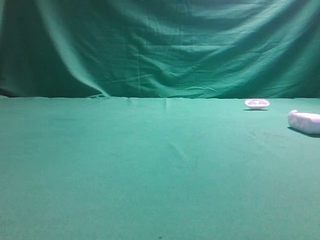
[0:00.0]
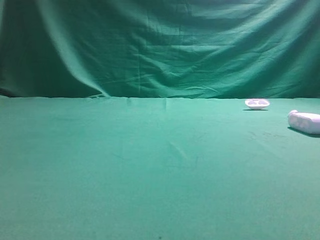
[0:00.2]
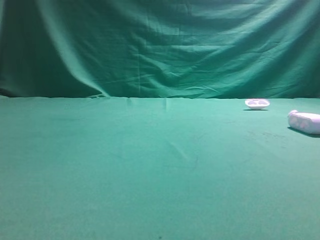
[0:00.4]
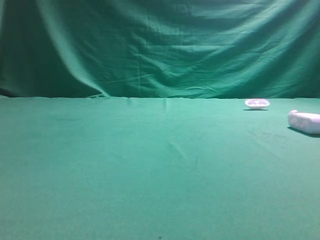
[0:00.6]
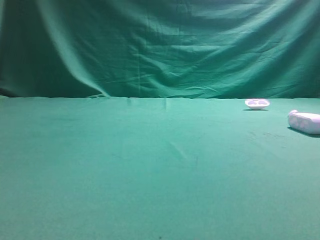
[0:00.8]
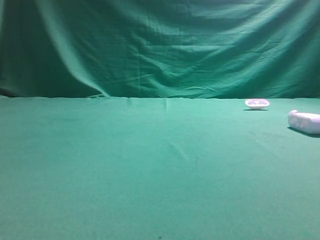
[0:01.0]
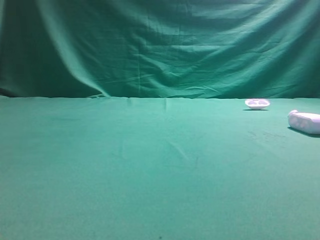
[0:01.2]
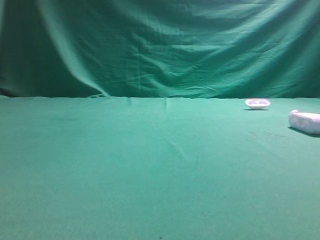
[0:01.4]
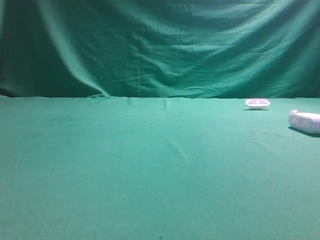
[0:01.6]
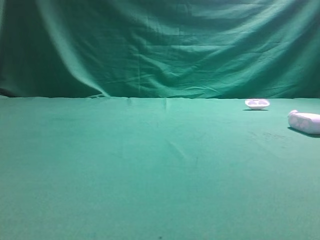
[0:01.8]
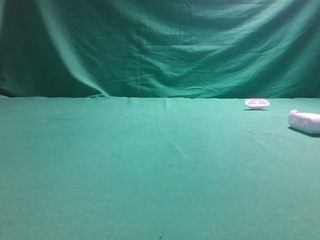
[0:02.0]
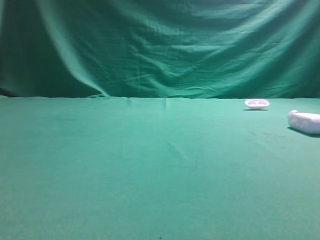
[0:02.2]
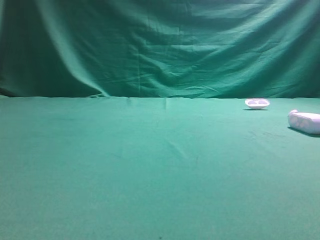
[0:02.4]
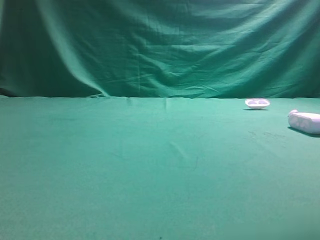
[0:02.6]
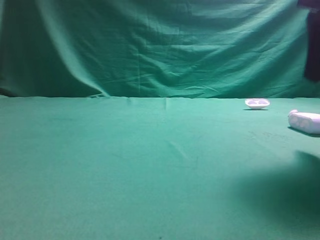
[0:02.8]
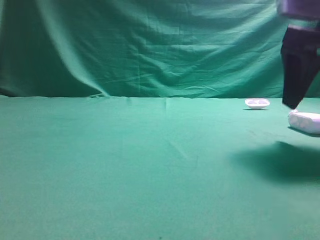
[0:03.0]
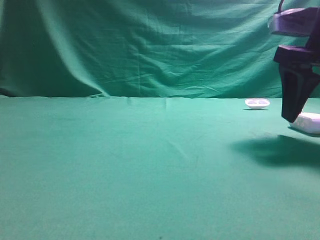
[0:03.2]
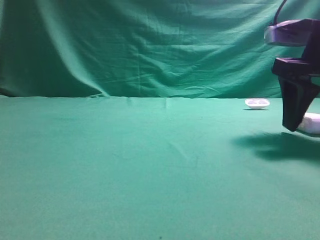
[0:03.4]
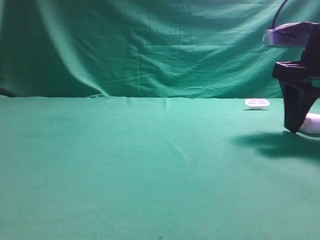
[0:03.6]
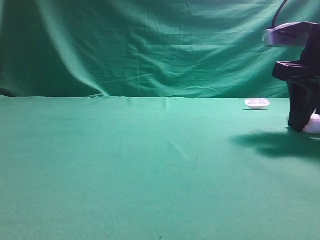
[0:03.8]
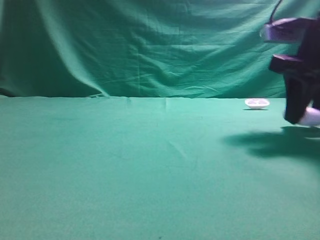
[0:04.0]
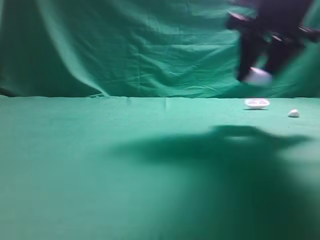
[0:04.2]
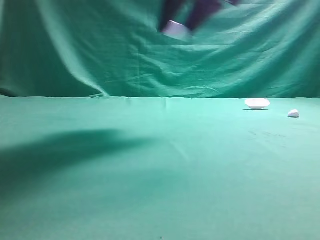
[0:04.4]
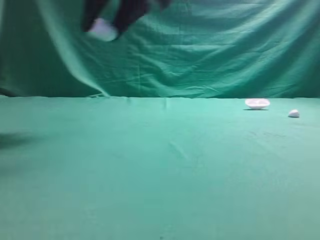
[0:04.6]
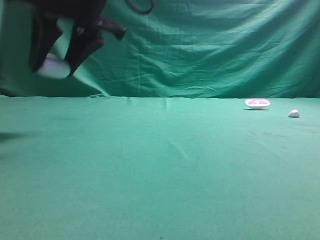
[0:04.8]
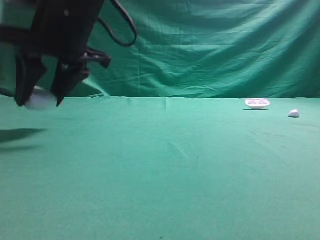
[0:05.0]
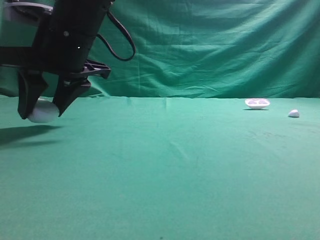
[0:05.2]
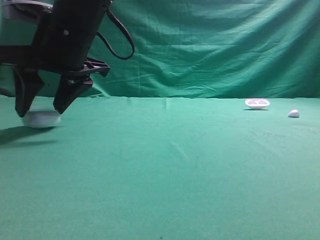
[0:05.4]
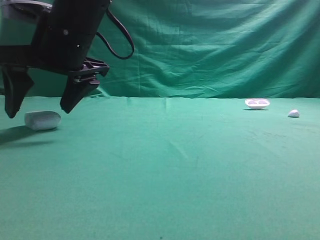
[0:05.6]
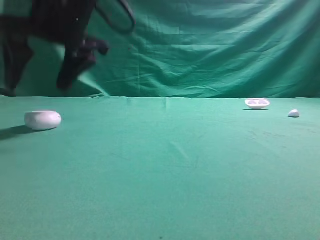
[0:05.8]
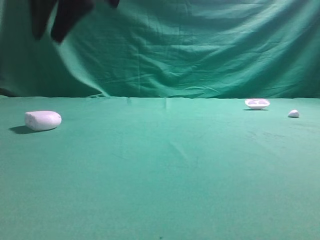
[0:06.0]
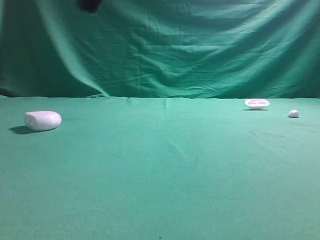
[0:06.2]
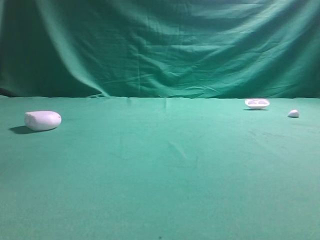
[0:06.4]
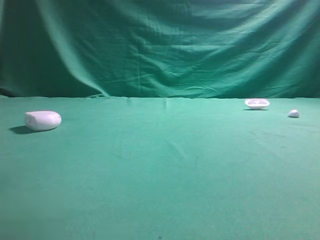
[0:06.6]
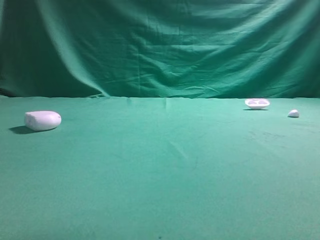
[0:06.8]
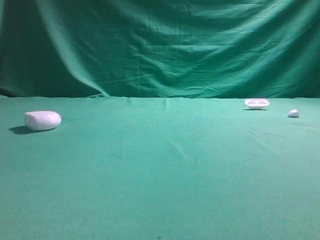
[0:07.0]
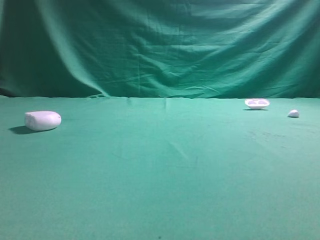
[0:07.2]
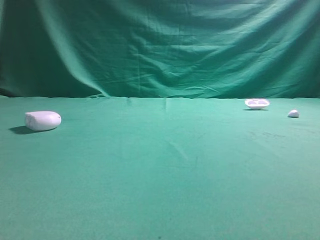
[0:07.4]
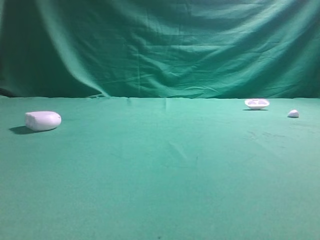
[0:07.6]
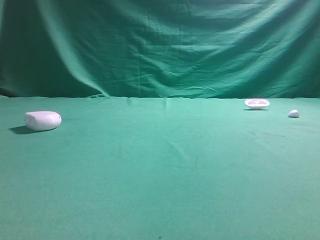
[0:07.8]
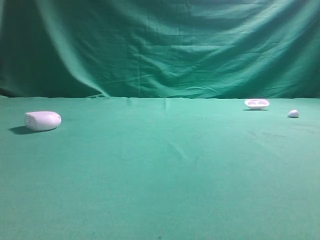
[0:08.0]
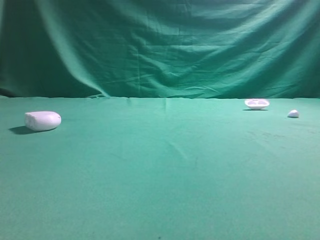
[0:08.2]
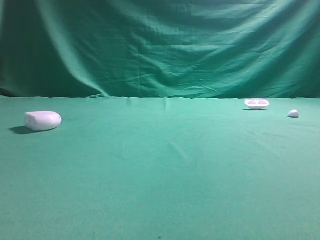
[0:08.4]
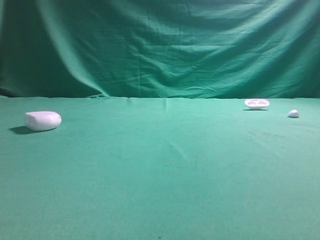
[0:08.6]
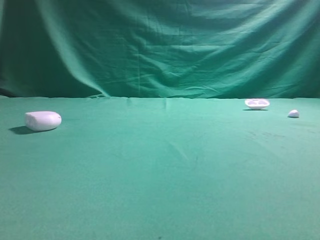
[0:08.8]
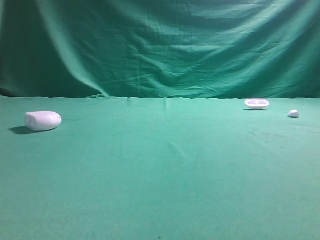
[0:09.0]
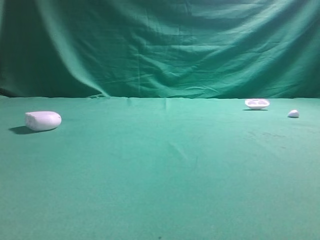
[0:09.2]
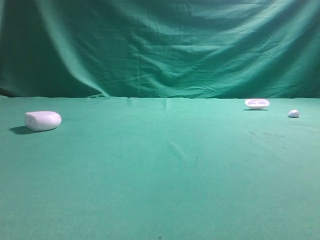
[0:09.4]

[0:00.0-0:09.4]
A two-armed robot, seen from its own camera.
Step, 0:00.0 to 0:04.0: Grasp the Bluetooth earphone case.
Step, 0:04.2 to 0:05.8: Place bluetooth earphone case on the left side of the table.

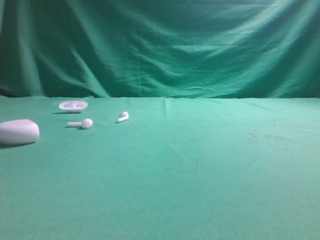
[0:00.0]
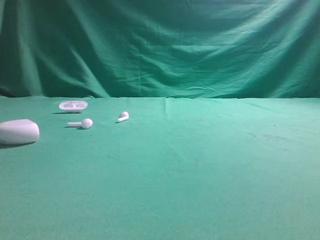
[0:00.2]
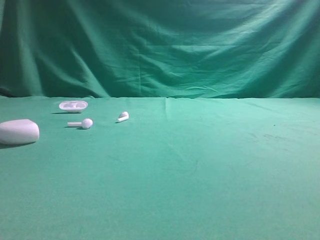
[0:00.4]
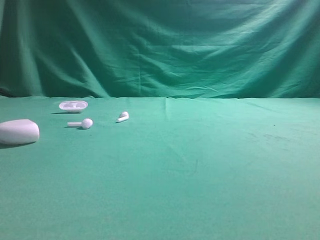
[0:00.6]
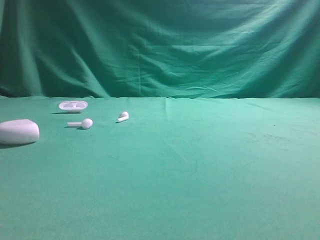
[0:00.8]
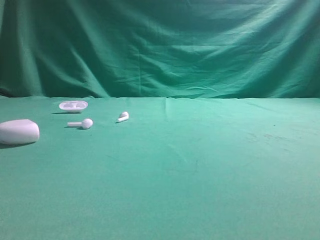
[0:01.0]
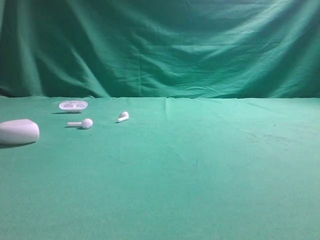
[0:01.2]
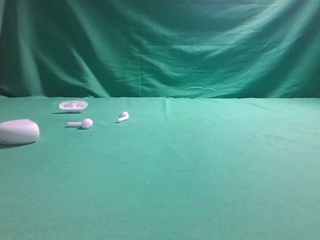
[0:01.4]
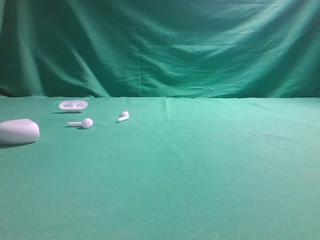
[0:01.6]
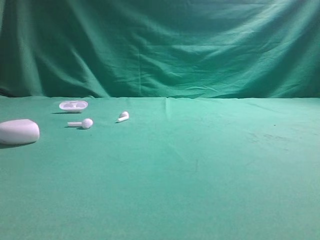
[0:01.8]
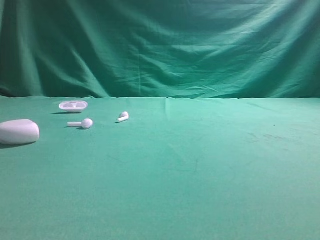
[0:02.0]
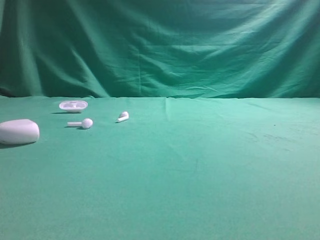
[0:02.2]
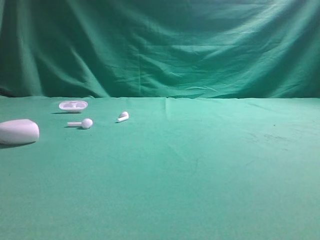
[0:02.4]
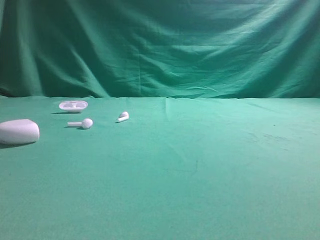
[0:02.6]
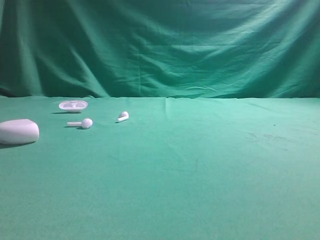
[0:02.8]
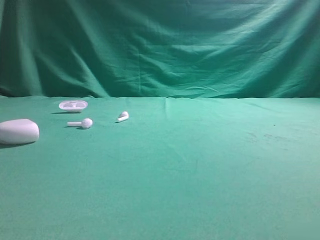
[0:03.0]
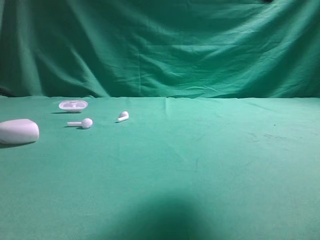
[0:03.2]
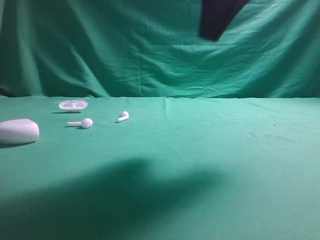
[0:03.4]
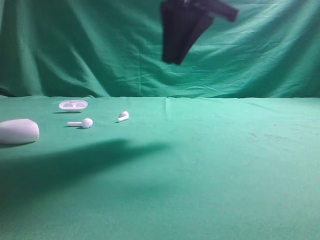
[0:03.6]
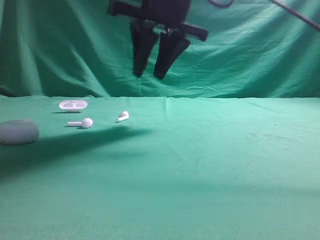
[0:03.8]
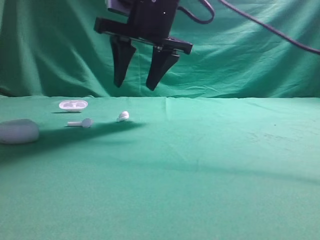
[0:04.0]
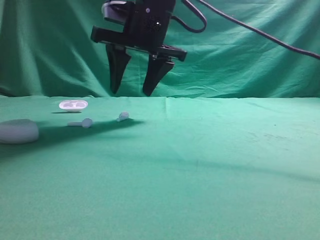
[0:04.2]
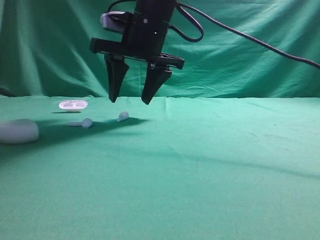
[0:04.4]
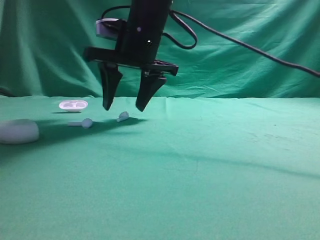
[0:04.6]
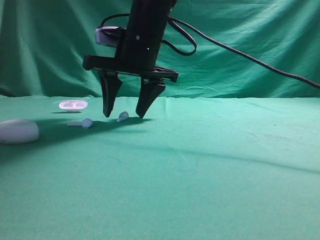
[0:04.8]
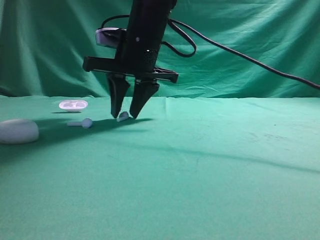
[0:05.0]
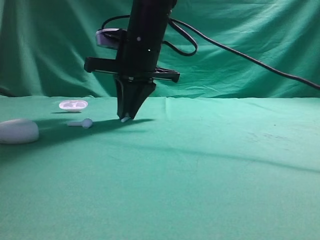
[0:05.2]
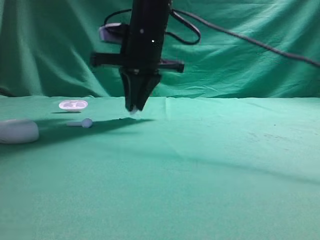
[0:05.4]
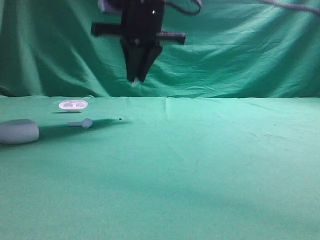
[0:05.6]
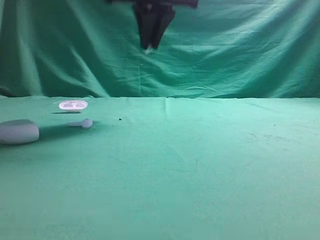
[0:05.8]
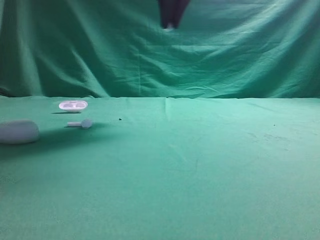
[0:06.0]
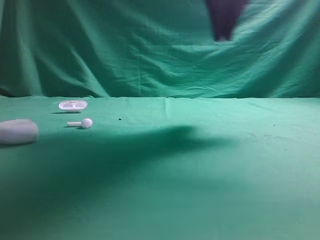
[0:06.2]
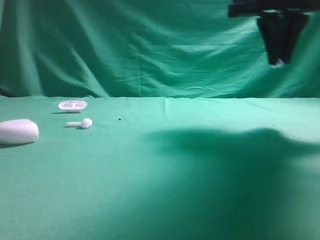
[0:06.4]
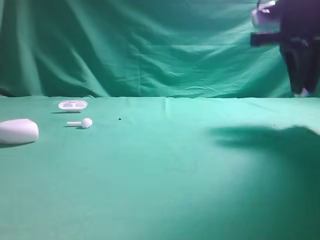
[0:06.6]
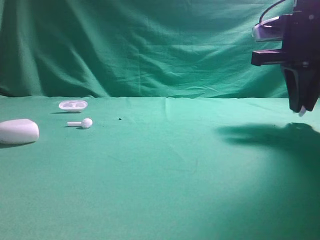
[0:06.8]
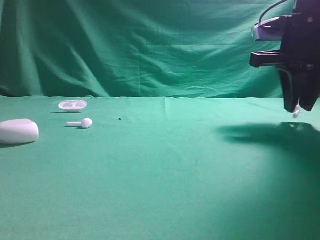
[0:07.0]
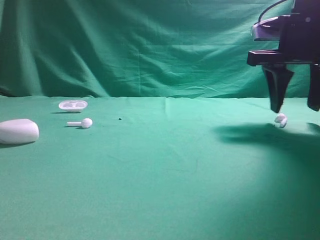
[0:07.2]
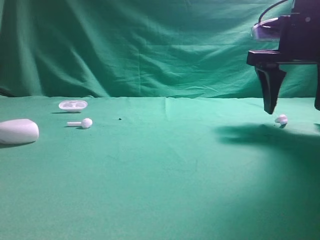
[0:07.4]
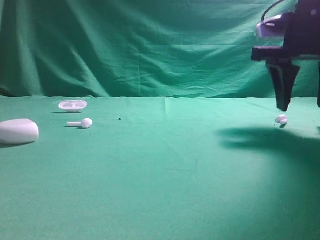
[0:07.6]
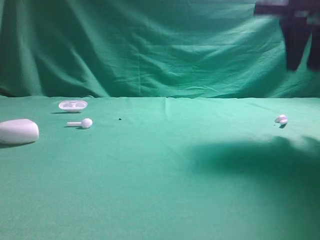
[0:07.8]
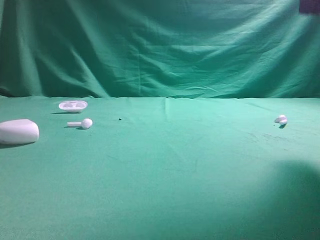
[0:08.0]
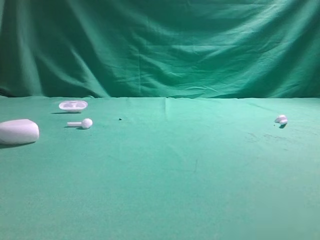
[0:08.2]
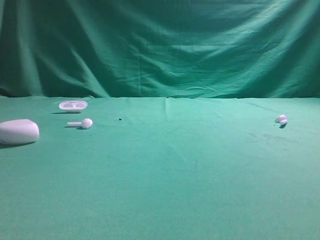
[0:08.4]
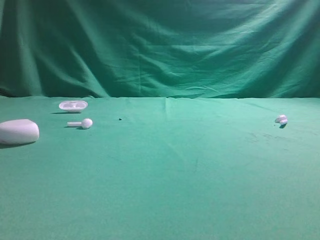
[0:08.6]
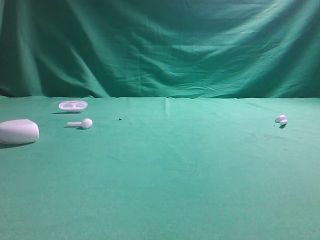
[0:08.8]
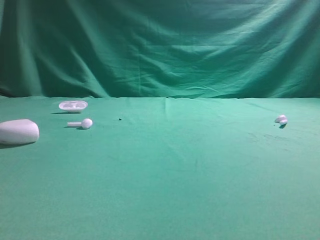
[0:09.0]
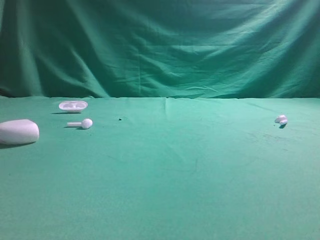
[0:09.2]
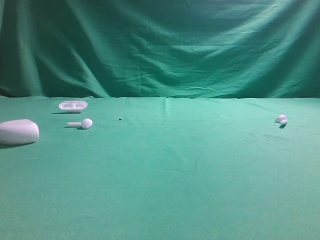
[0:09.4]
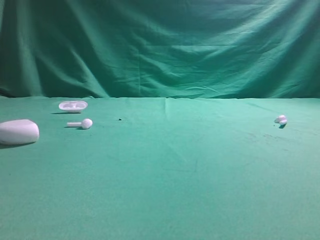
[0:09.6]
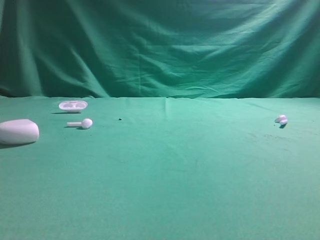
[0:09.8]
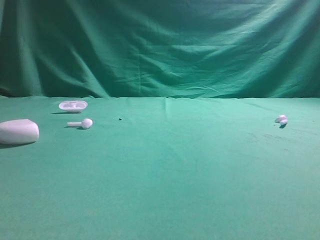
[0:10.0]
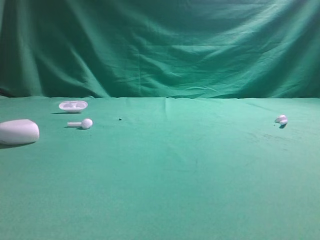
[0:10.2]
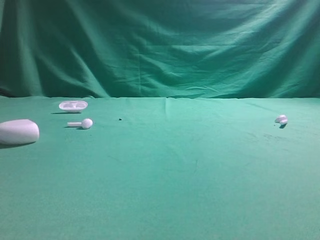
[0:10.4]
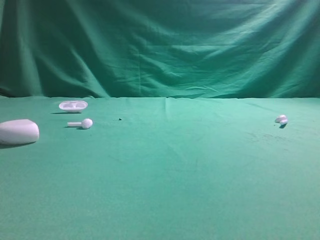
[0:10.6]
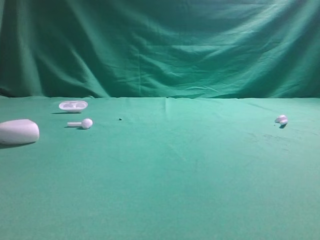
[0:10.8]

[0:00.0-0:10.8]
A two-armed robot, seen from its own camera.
Step, 0:00.0 to 0:05.8: Grasp the Bluetooth earbud.
Step, 0:06.0 to 0:07.6: Place bluetooth earbud on the right side of the table.

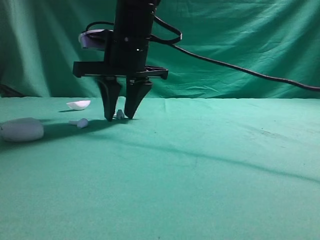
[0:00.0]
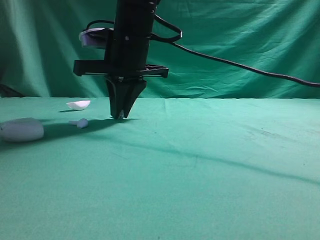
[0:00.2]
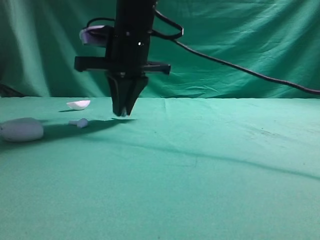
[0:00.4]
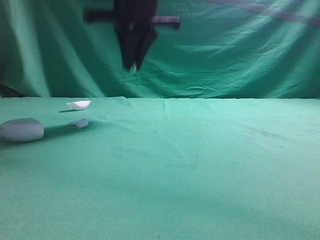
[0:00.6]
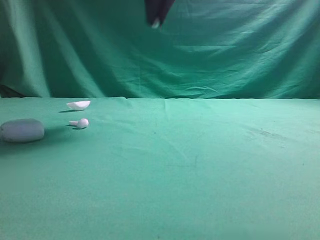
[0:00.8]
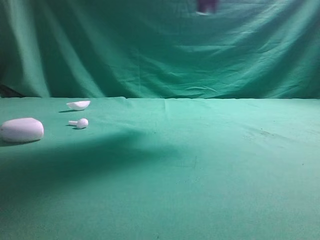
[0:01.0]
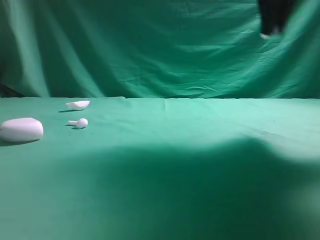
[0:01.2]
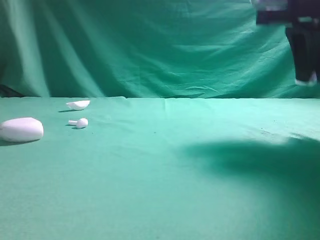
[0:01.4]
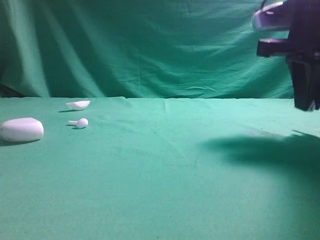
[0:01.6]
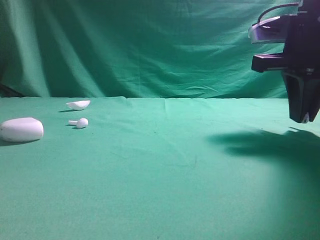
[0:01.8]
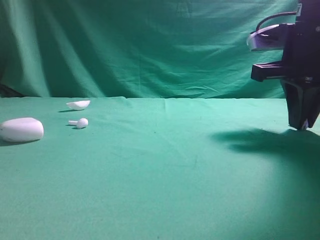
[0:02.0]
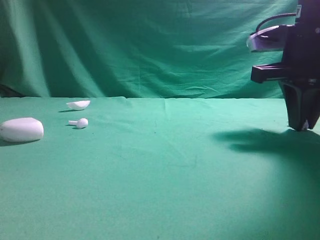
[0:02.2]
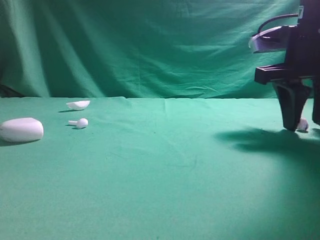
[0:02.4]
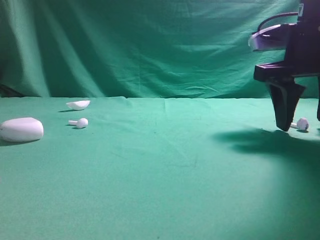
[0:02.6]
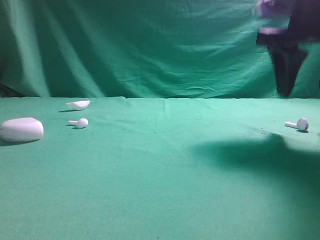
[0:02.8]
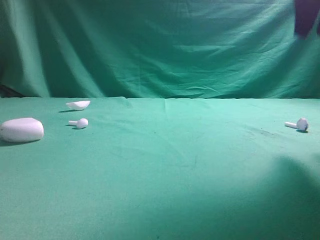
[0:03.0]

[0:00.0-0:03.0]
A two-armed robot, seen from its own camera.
Step, 0:00.2 to 0:02.4: Place bluetooth earbud on the right side of the table.
